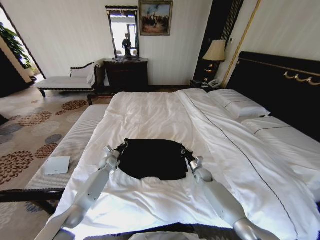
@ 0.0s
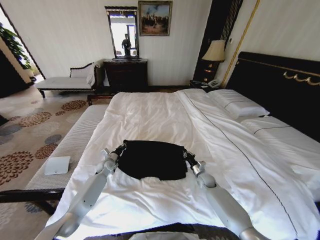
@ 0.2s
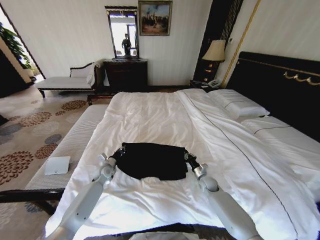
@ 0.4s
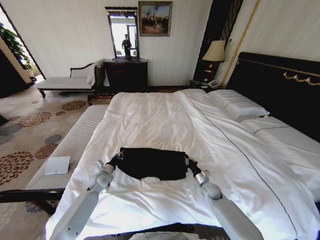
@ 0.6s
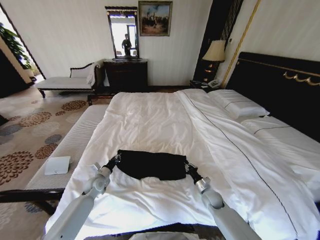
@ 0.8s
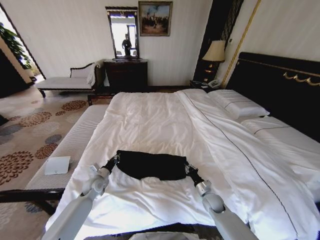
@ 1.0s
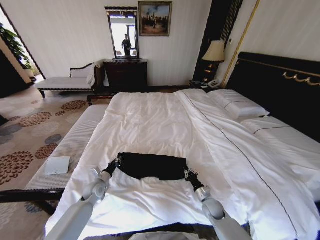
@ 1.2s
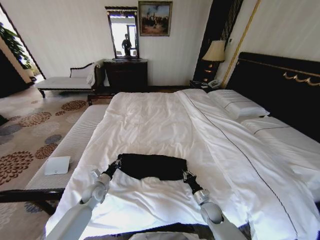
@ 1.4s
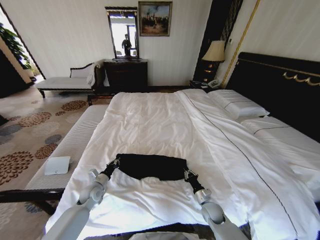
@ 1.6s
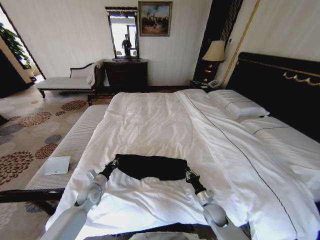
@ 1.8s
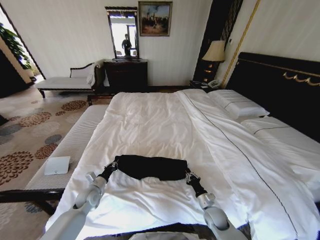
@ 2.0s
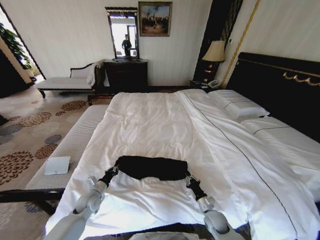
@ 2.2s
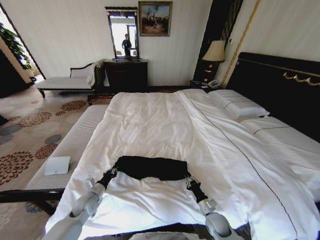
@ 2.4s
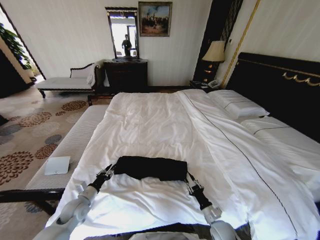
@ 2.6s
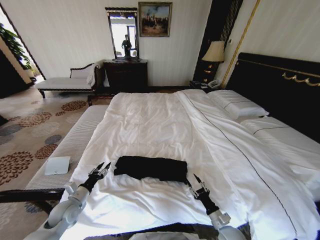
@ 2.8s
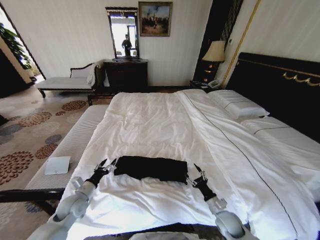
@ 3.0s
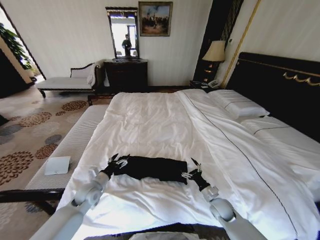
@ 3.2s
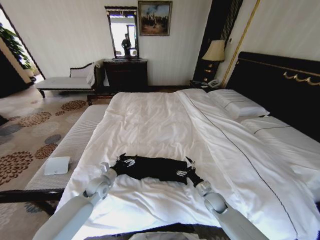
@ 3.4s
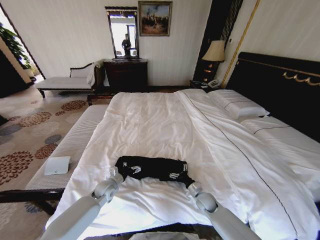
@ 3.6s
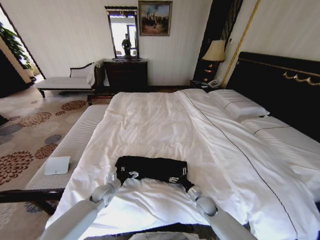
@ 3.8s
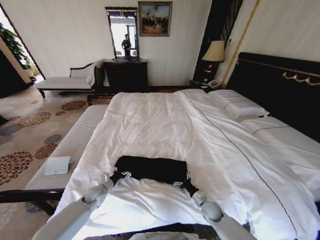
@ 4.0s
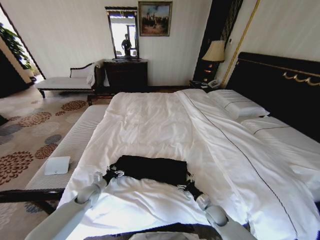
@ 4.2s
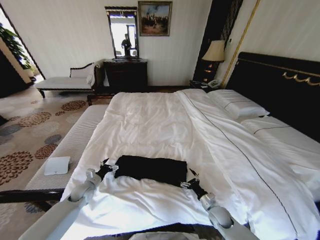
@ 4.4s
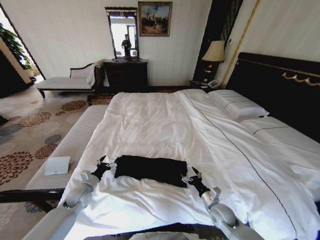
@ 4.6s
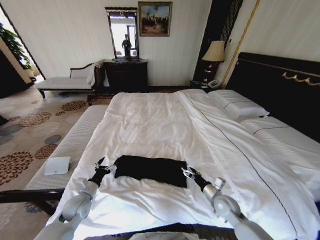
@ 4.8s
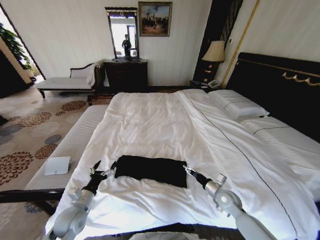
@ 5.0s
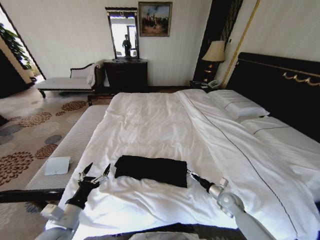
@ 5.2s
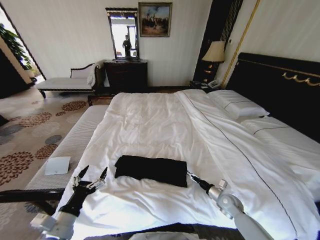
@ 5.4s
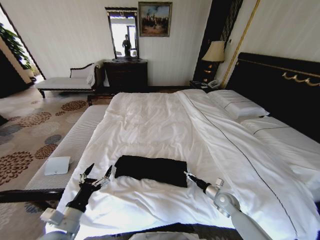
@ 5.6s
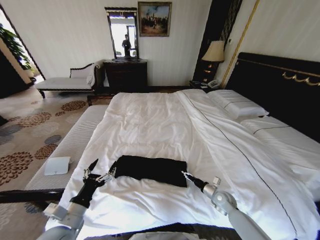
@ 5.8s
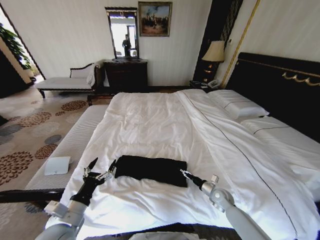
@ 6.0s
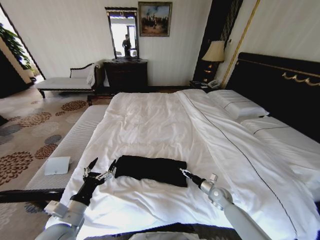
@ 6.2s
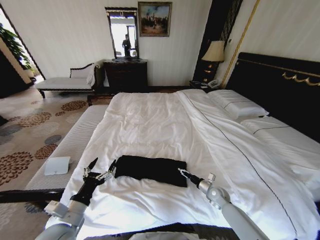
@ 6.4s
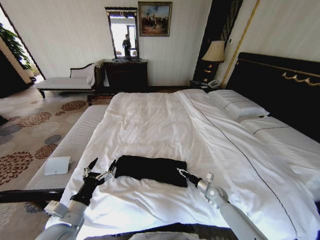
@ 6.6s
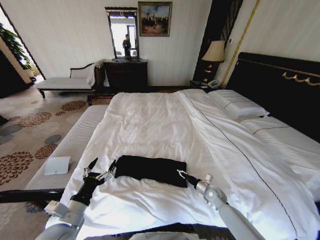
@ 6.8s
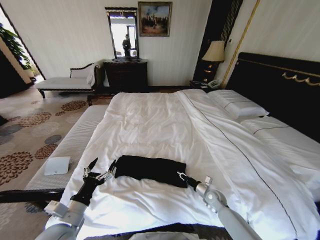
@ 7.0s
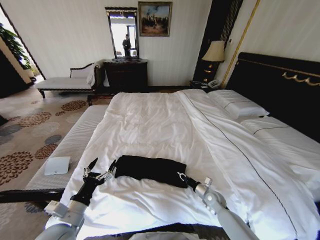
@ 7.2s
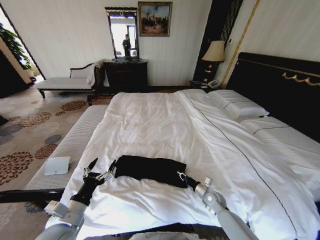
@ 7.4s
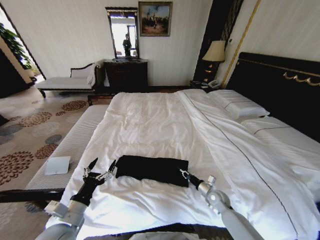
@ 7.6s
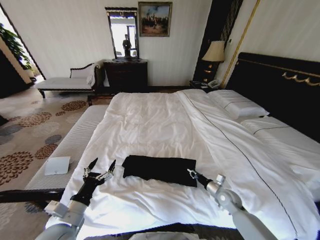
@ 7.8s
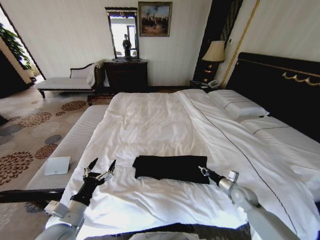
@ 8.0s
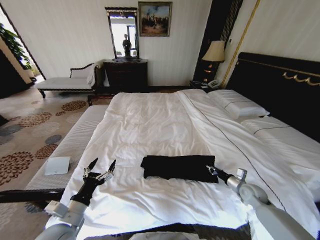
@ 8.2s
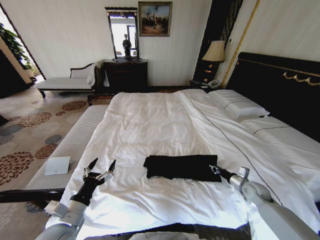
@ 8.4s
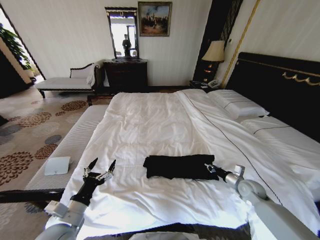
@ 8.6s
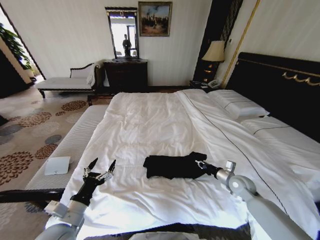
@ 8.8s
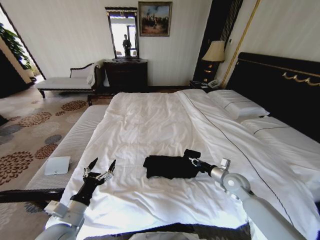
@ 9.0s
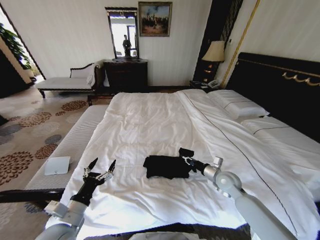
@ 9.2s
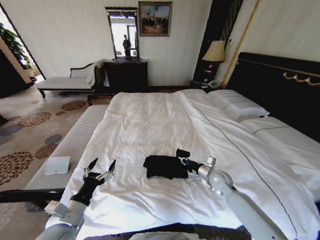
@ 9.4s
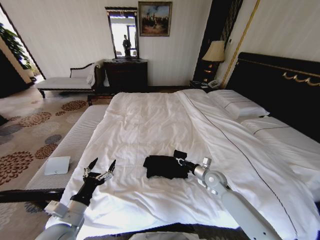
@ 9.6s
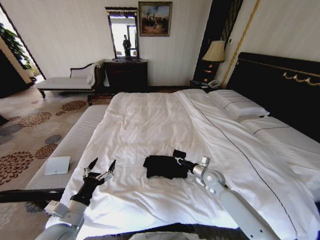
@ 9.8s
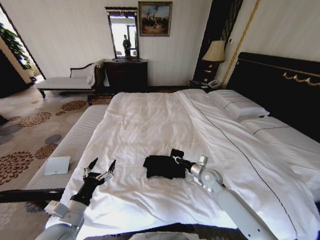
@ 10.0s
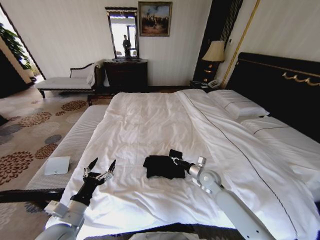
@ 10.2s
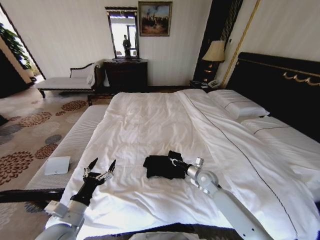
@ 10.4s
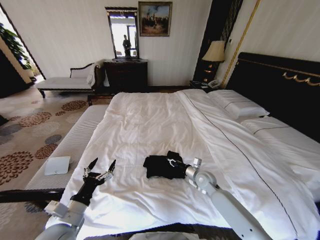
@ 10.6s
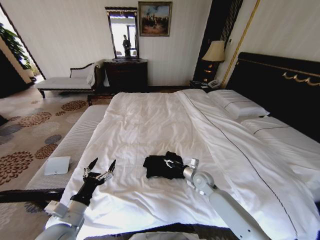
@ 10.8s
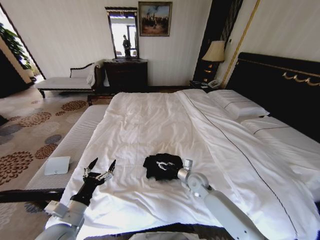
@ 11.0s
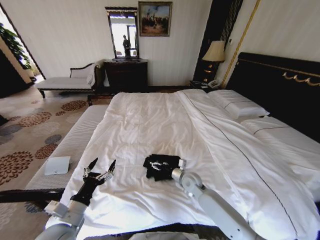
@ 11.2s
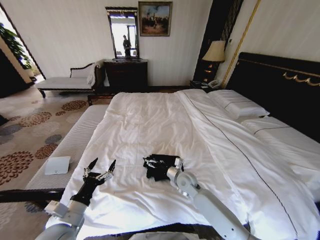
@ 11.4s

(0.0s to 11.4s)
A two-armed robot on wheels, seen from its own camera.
Task of the whole recording: Fold the clothes on the bed.
0.0s - 1.4s: The two grippers go some 15 cm backward.
1.4s - 2.8s: The right gripper is displaced backward by roughly 10 cm, and opens its fingers; the left gripper shifts some 10 cm backward and to the left, and opens.
2.8s - 4.2s: The right gripper moves forward, about 10 cm, and opens up. Meanwhile the left gripper moves forward and downward, some 10 cm, travels to the right and back again, approximately 10 cm each way, and opens.
4.2s - 5.6s: The right gripper is displaced to the right and upward by about 10 cm; the left gripper moves backward and upward, about 25 cm.
5.6s - 7.2s: The right gripper ends up some 5 cm from where it was, and closes.
7.2s - 8.6s: The right gripper is displaced to the right and upward by about 15 cm.
8.6s - 10.0s: The right gripper goes about 15 cm to the left.
10.0s - 11.4s: The right gripper goes approximately 15 cm to the left, and opens.

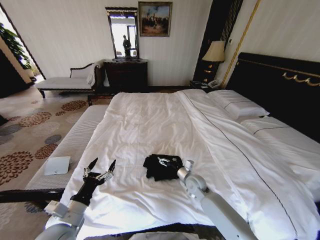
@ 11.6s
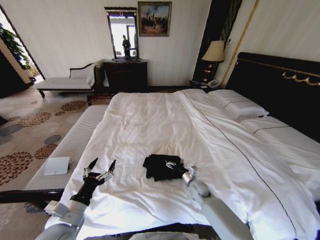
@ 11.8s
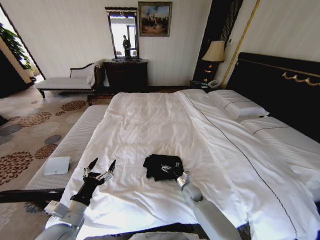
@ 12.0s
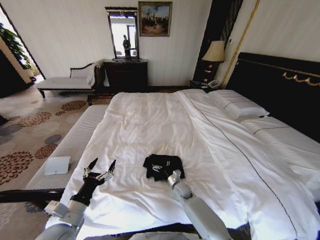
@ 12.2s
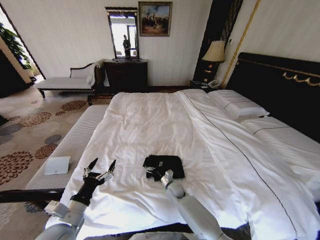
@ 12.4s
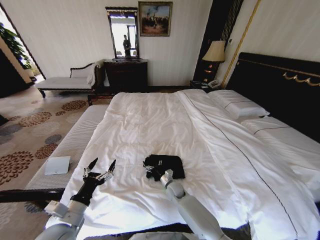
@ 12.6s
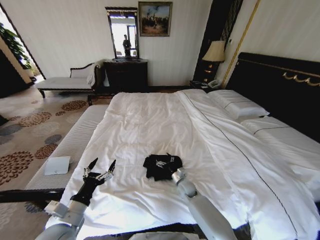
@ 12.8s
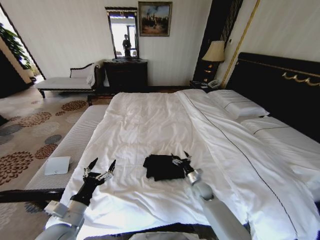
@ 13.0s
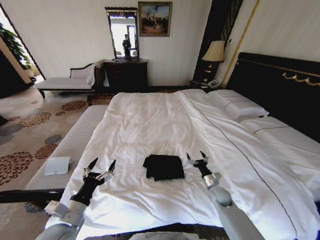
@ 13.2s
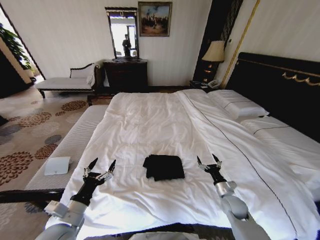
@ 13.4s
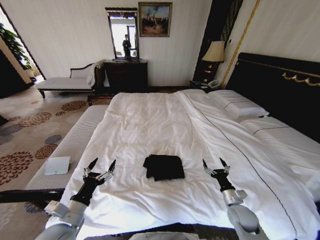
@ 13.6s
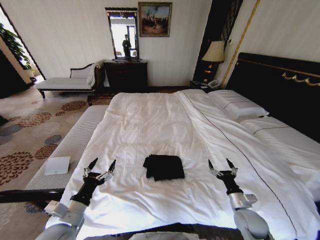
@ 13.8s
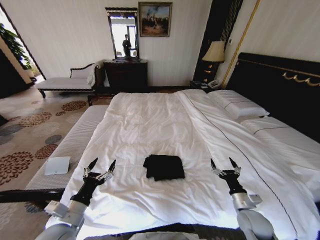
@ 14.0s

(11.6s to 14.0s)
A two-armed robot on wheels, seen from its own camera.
Task of the whole recording: Fold the clothes on the bed.
11.6s - 12.8s: The right gripper is displaced downward and to the left by approximately 10 cm.
12.8s - 14.0s: The right gripper travels to the right and backward by some 30 cm.
